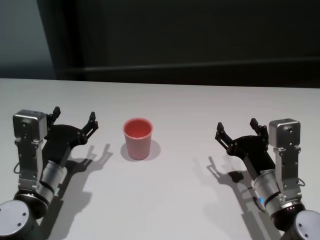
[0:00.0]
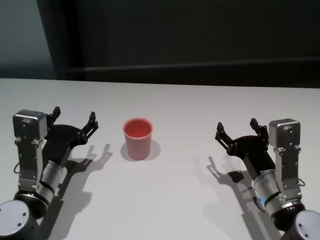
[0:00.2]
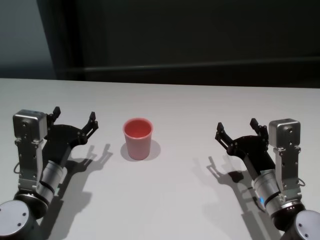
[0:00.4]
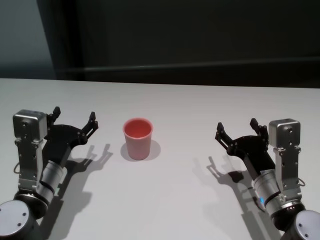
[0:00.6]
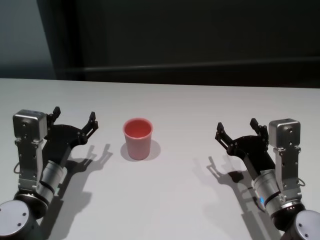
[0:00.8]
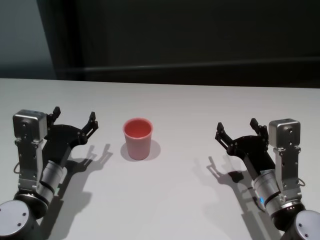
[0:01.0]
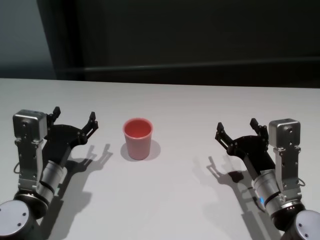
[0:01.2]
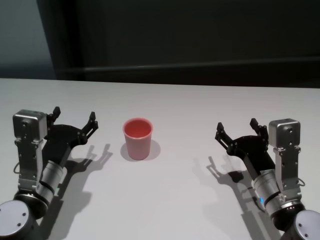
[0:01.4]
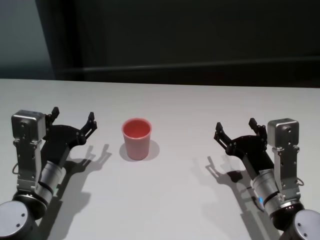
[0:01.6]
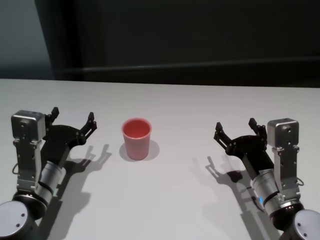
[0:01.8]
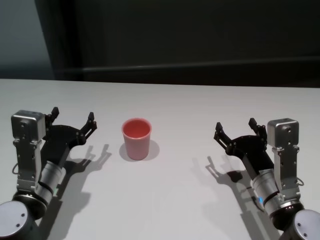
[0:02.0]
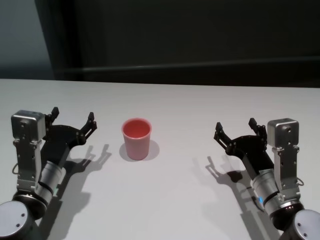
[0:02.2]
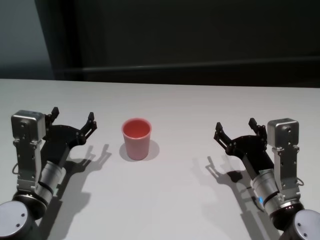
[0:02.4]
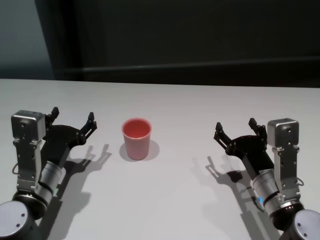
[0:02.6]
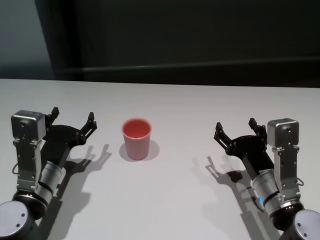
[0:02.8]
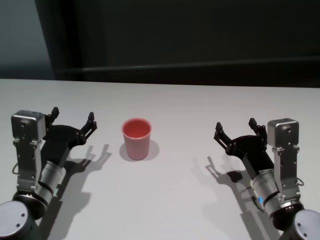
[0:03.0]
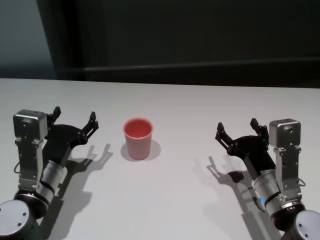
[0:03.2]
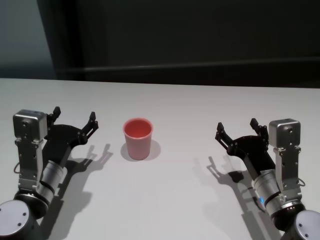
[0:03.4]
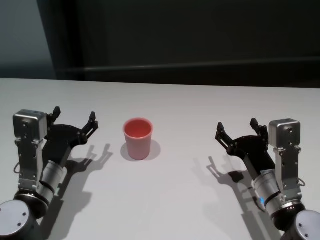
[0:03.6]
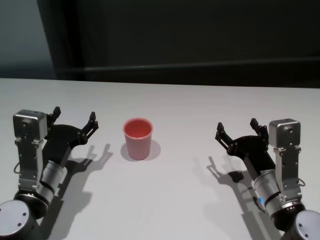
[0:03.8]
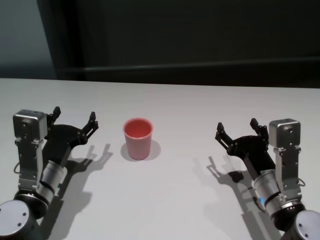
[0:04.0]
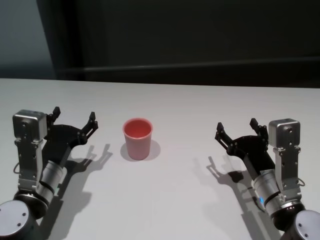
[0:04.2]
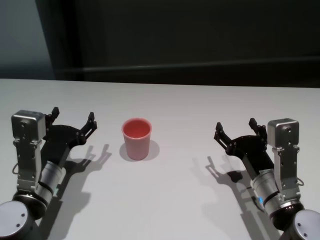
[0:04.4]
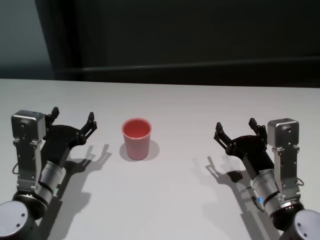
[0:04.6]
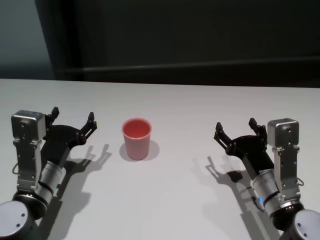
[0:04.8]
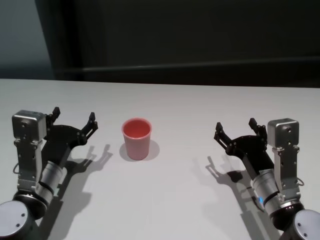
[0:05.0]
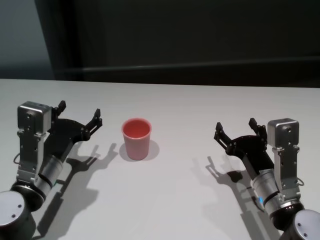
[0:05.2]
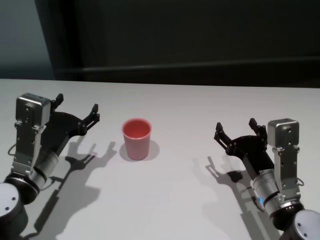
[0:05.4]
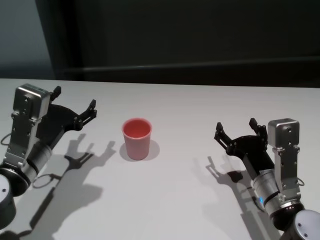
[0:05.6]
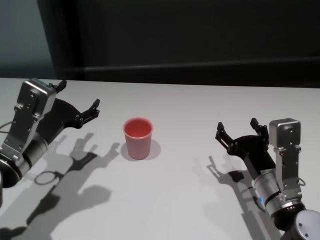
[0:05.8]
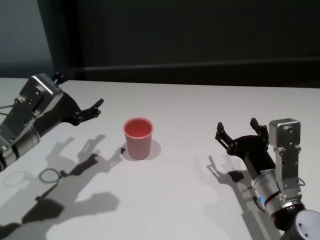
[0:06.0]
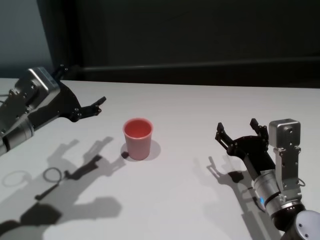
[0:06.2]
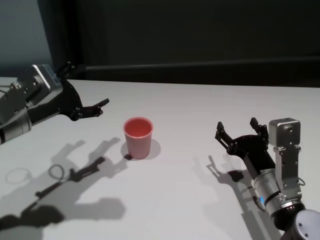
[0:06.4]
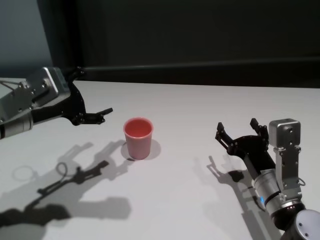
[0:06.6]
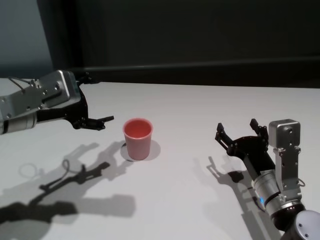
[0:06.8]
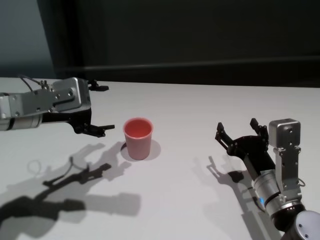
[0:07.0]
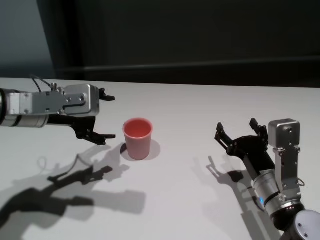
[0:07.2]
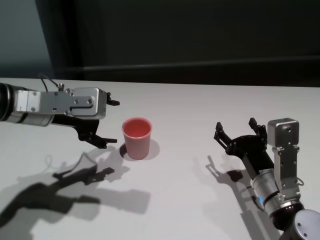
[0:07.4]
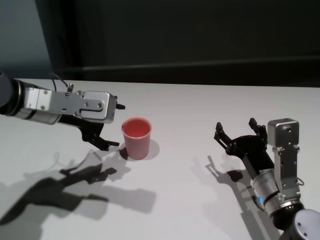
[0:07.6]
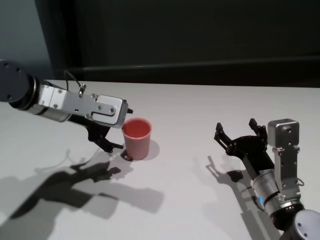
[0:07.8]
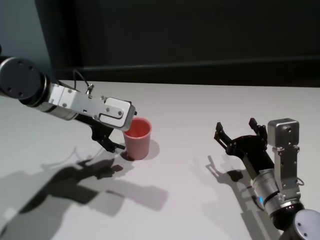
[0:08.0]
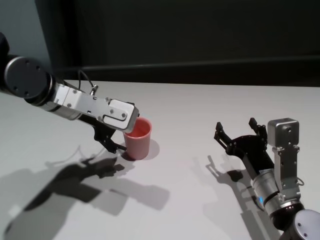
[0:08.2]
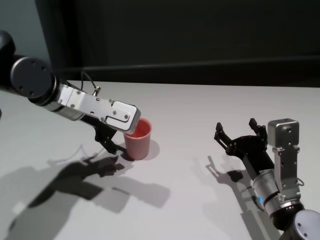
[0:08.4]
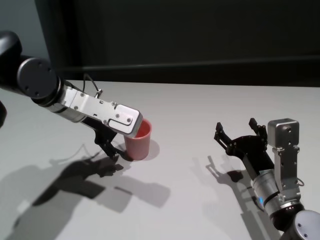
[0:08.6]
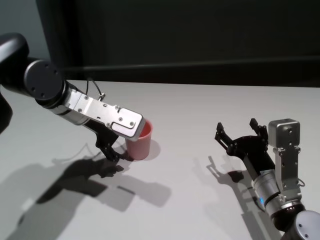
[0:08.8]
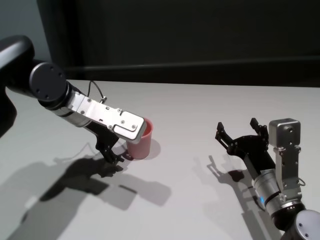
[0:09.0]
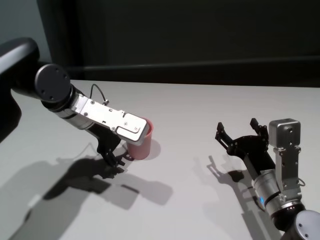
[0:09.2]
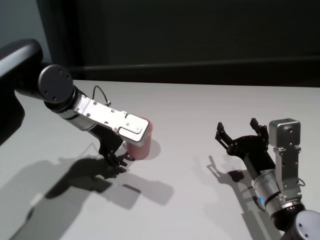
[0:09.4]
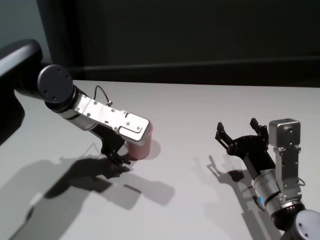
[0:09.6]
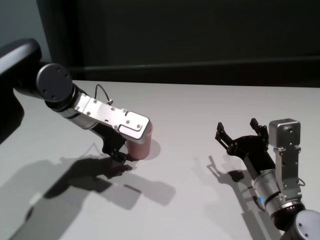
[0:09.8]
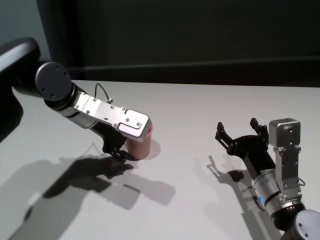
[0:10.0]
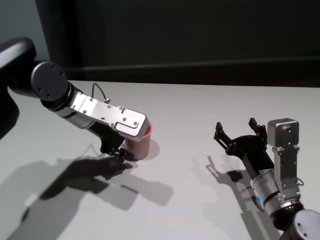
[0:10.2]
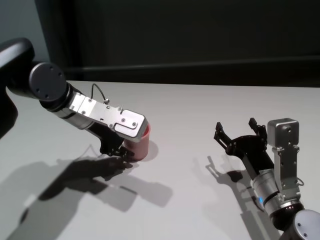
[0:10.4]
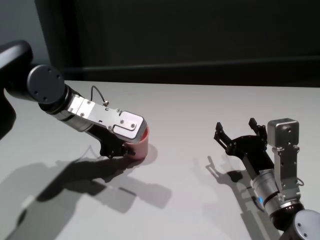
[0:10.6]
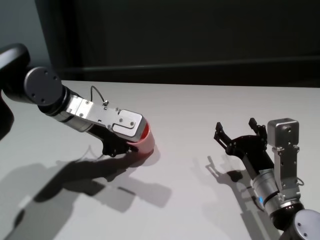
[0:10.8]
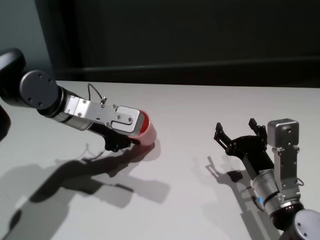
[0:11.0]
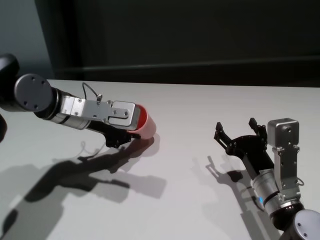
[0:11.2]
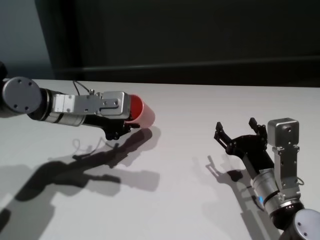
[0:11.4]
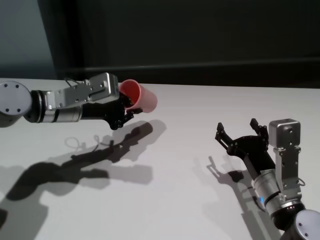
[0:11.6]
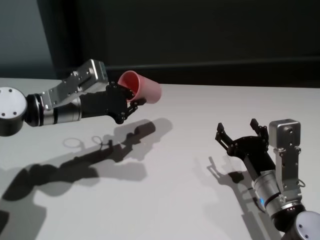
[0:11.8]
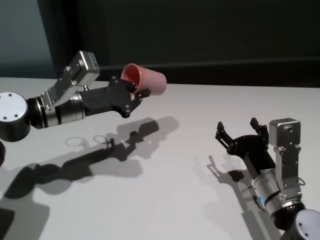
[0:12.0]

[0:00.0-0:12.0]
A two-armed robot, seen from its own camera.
Task of the whole recording: On the white table pick up the cup with one hand and transfer it to the other hand before turning it over.
Step, 0:00.0 to 0:10.6: Grasp the cup with left gripper.

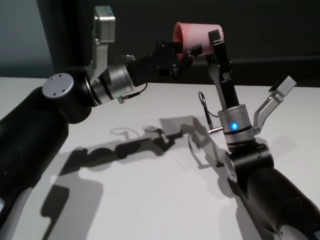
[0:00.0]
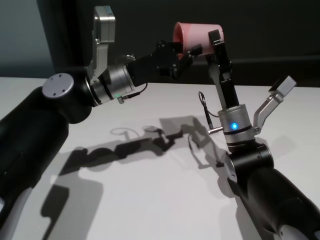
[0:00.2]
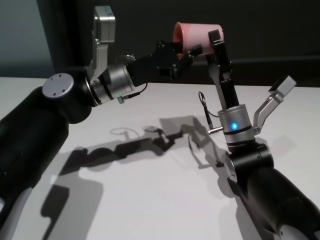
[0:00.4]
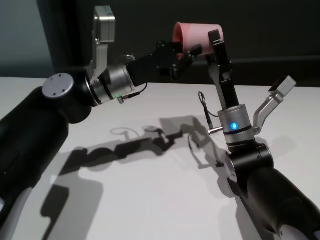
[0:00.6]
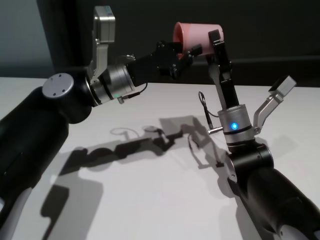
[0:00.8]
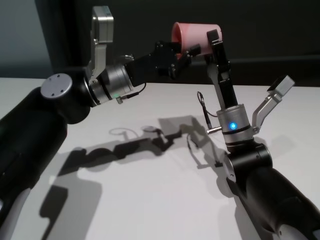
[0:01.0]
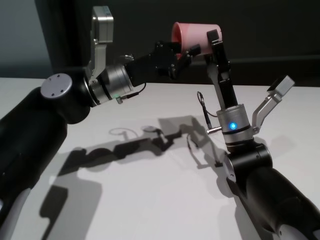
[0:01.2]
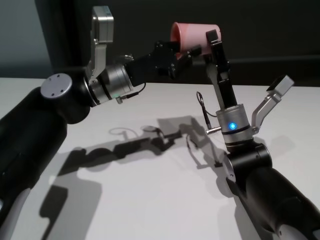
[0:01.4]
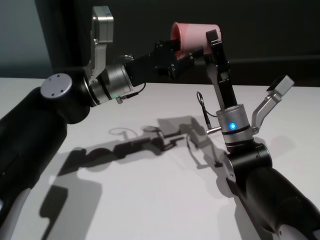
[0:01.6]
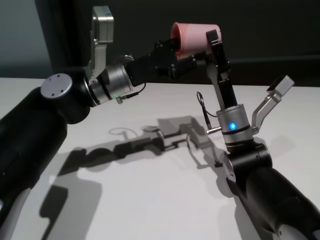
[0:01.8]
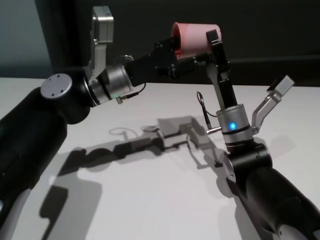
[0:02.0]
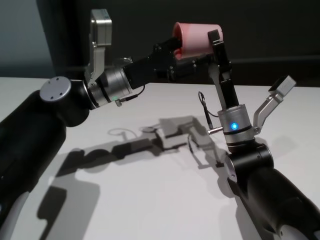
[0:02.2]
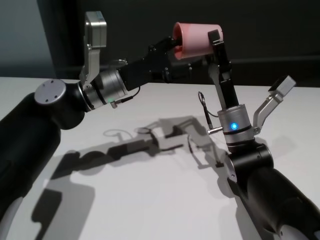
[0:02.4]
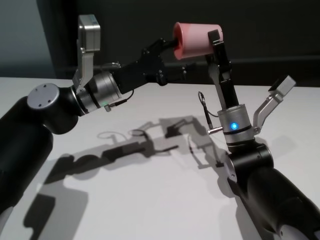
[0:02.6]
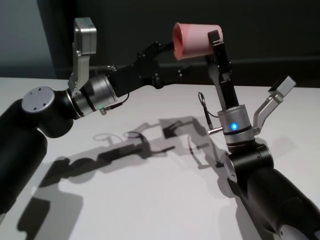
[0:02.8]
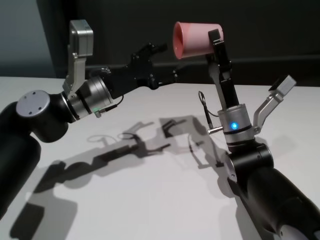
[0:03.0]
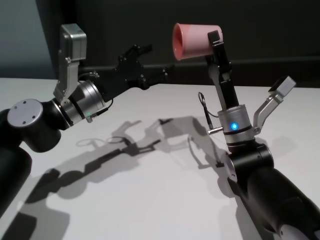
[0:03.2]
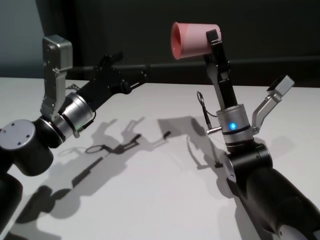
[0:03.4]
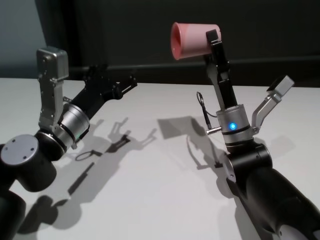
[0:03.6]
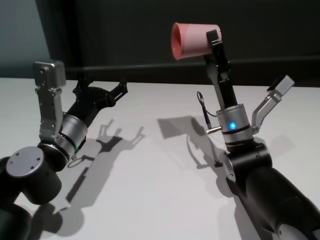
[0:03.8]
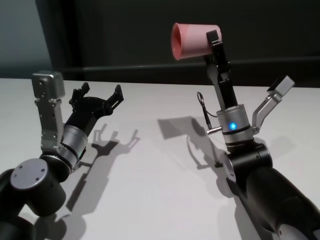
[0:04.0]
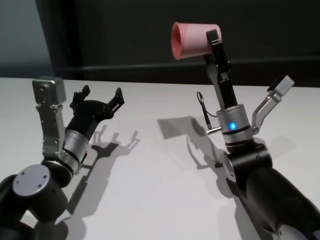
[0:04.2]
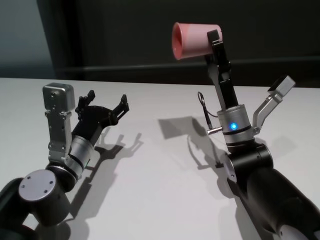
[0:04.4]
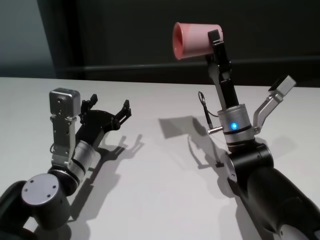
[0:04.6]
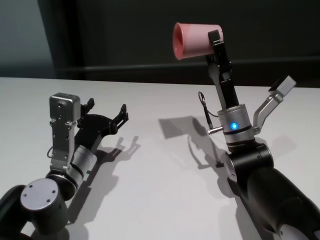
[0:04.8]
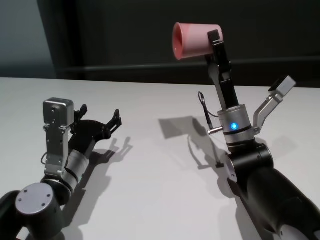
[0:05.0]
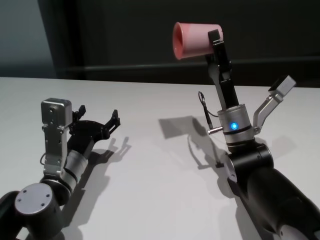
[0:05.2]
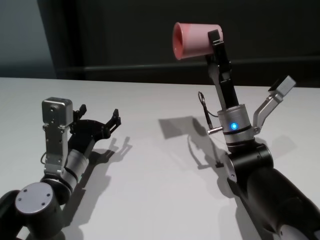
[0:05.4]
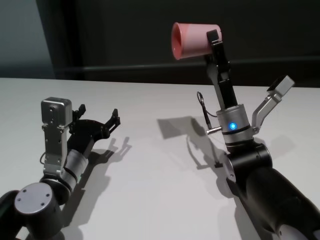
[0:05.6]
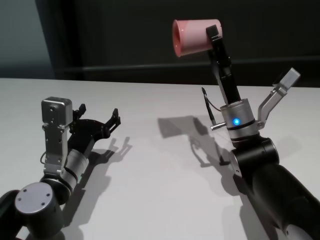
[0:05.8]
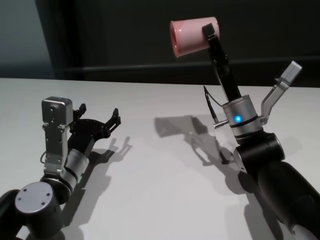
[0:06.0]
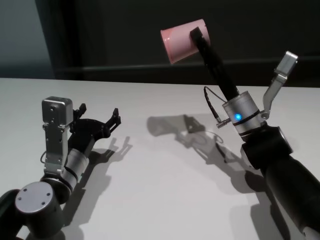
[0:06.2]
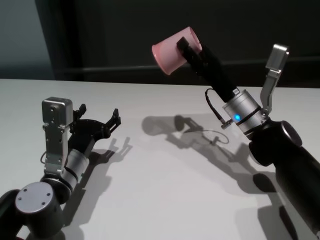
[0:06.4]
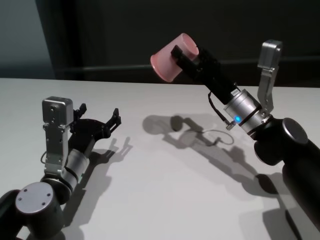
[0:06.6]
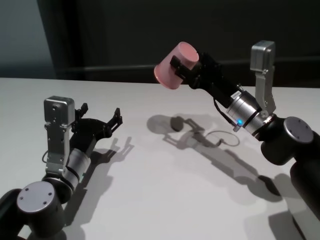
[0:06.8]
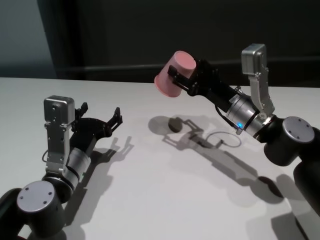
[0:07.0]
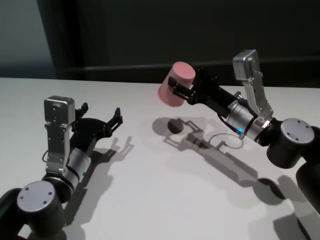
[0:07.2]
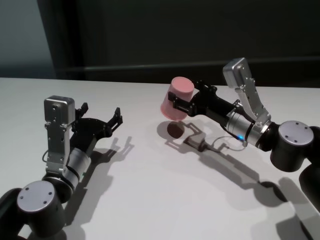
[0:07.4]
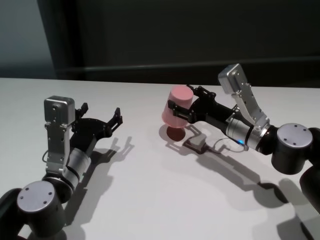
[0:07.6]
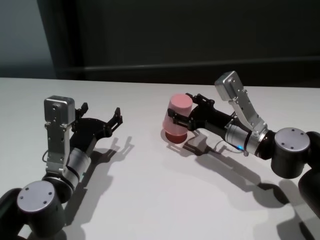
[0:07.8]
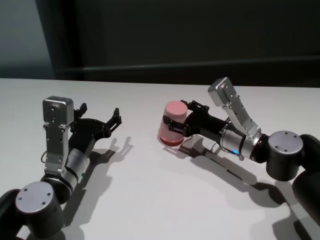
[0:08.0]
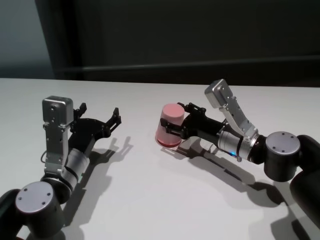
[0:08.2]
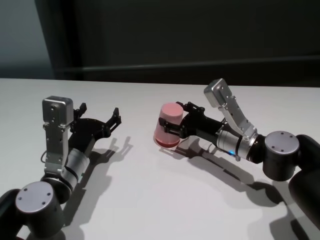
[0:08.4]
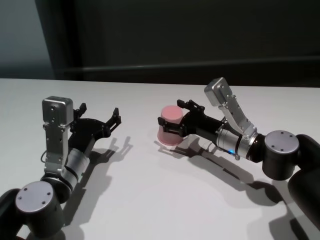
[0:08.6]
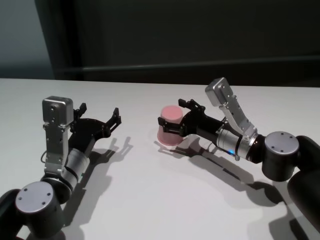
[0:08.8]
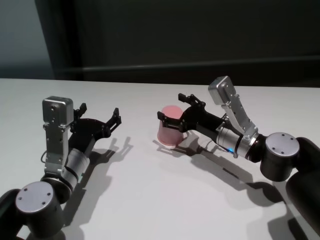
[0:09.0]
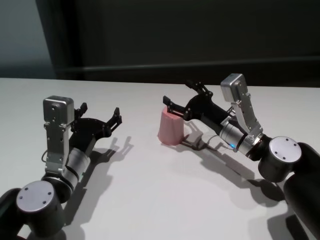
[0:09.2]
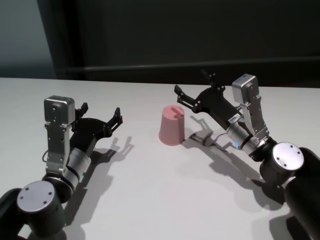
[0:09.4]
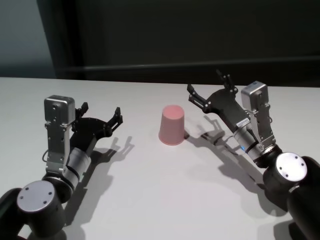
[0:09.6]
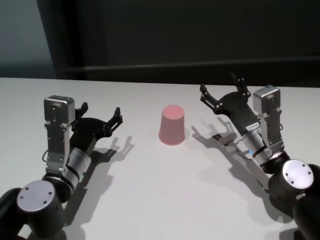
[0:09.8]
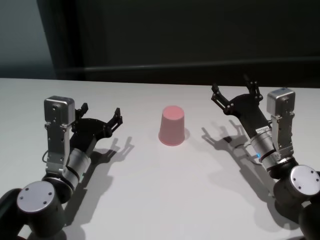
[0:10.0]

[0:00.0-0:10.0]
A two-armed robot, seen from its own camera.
Task of the whole recording: On the white table pick up the cup with one hand and transfer it to the other hand before turning it over.
Step, 0:00.0 to 0:02.8: Pass the cup to the right gripper.
Step, 0:03.0 to 0:09.2: Place the cup on the table with right gripper.

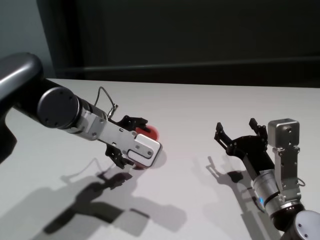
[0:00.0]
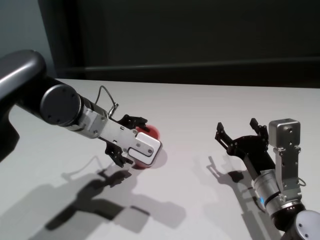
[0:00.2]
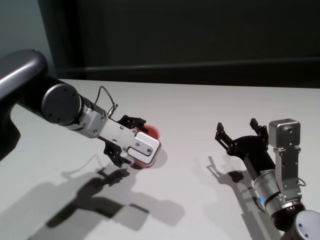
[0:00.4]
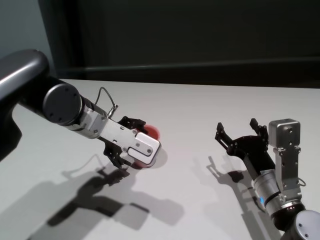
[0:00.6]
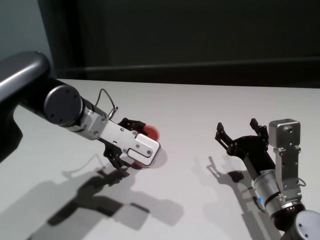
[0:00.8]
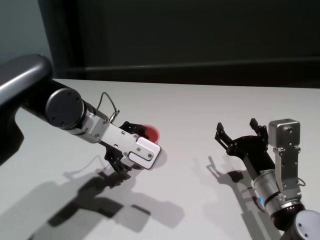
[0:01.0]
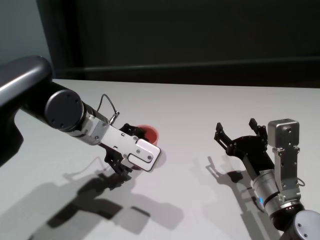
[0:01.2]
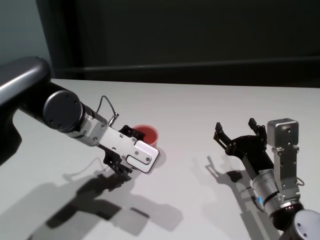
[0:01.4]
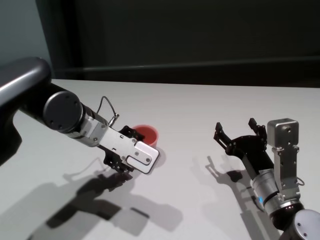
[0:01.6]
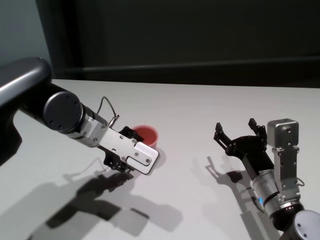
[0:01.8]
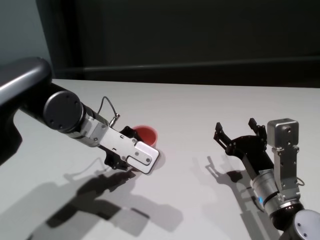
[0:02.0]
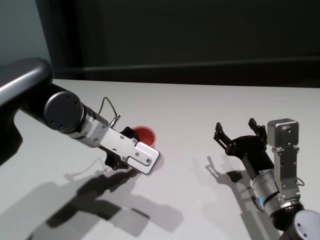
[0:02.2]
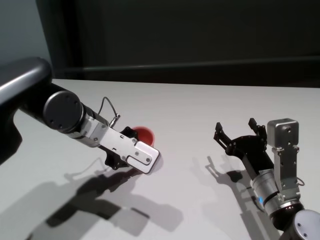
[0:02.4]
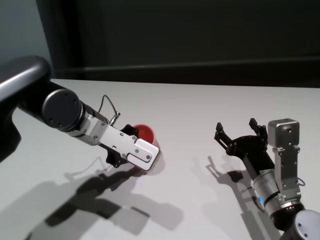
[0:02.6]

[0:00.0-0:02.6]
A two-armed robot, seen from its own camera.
Task of the whole recording: On the white table pick up the cup with one hand and transfer it to the other hand before turning it over.
Step, 0:00.0 to 0:02.2: Grasp the cup with left gripper.
